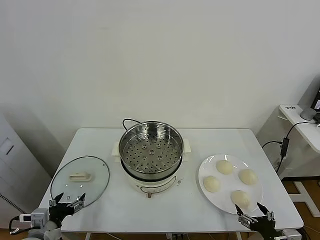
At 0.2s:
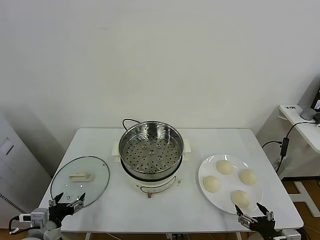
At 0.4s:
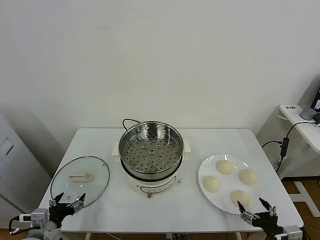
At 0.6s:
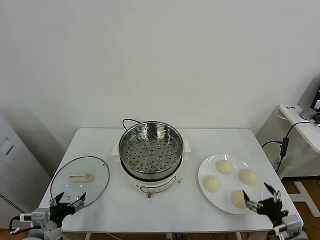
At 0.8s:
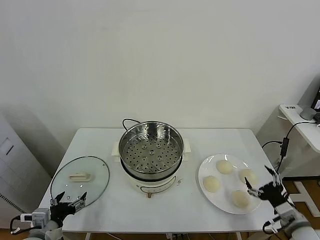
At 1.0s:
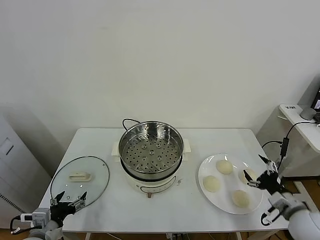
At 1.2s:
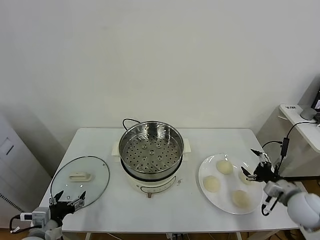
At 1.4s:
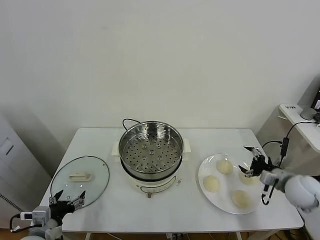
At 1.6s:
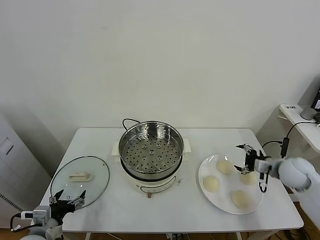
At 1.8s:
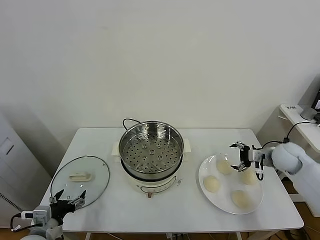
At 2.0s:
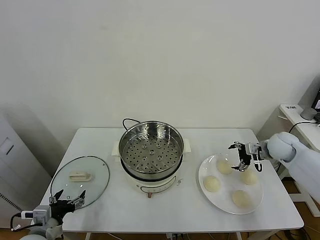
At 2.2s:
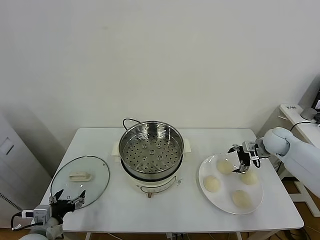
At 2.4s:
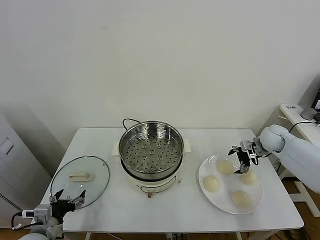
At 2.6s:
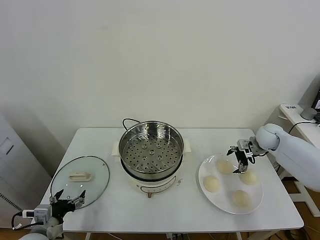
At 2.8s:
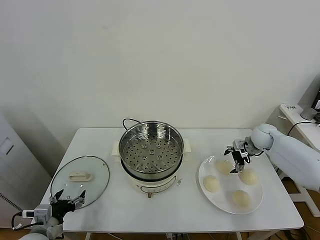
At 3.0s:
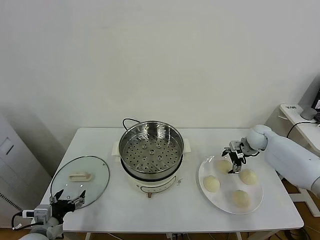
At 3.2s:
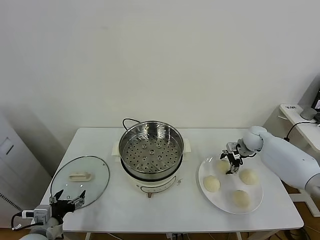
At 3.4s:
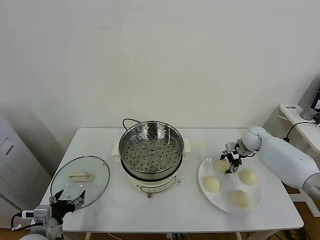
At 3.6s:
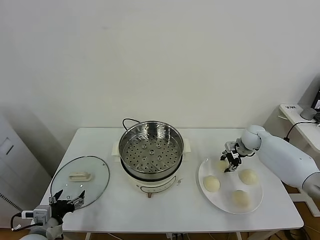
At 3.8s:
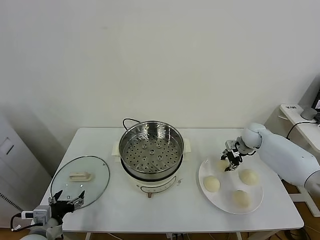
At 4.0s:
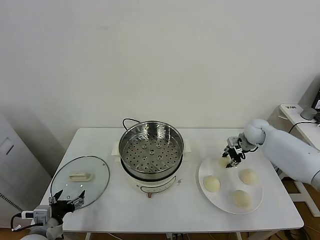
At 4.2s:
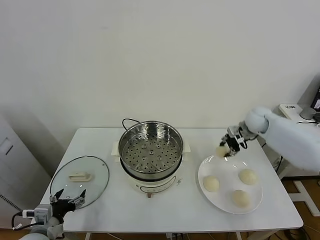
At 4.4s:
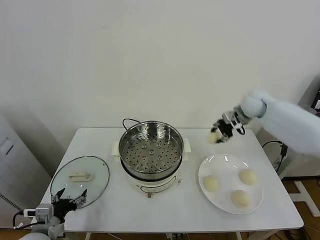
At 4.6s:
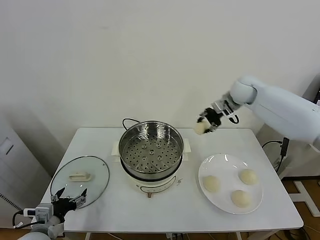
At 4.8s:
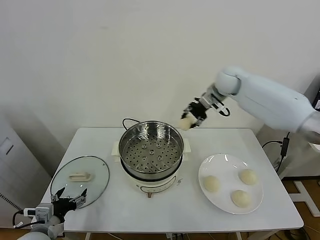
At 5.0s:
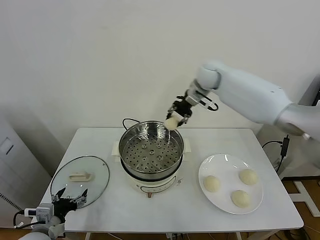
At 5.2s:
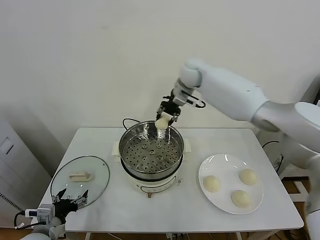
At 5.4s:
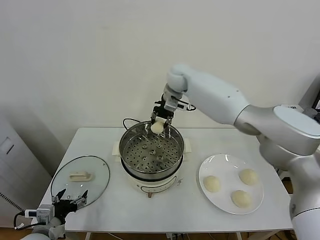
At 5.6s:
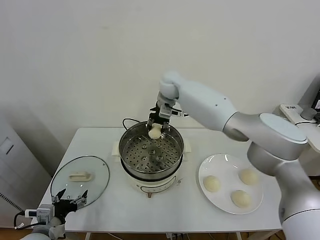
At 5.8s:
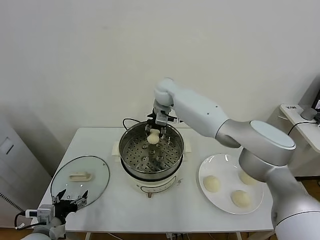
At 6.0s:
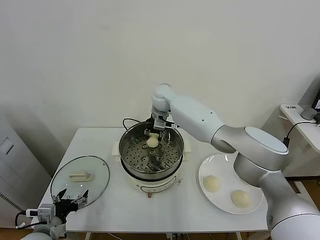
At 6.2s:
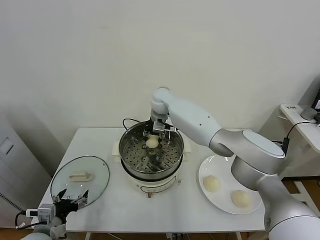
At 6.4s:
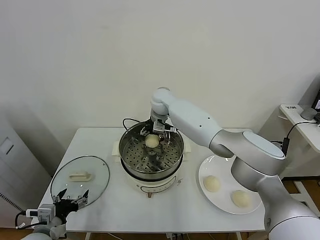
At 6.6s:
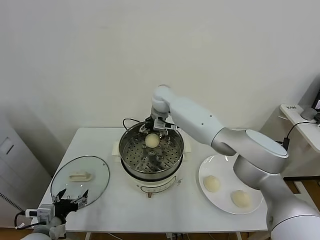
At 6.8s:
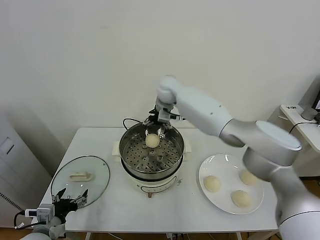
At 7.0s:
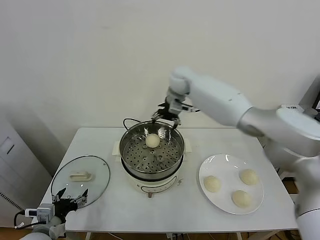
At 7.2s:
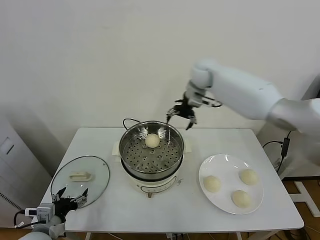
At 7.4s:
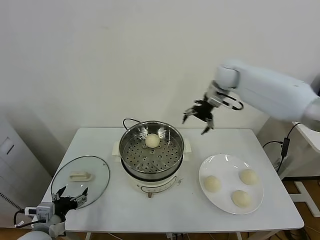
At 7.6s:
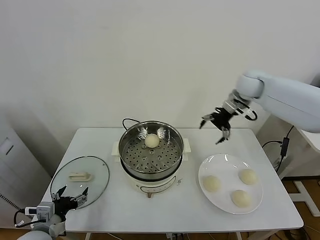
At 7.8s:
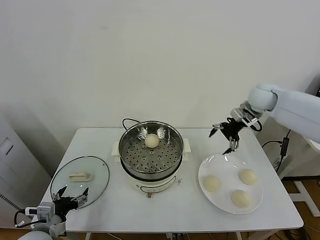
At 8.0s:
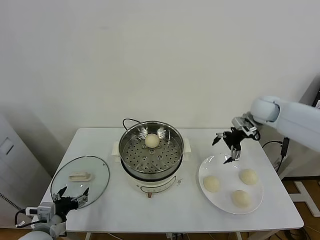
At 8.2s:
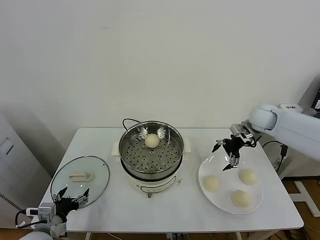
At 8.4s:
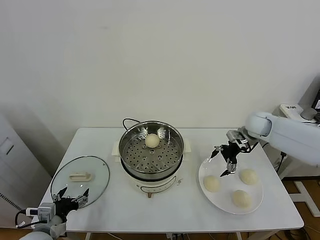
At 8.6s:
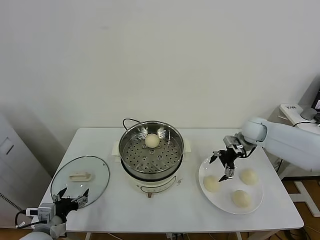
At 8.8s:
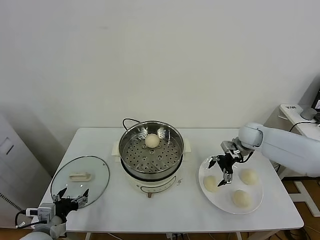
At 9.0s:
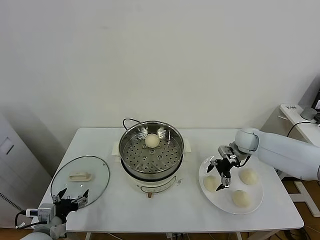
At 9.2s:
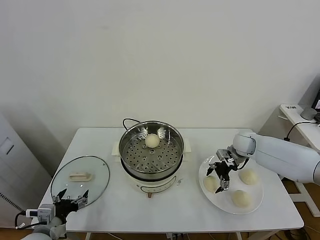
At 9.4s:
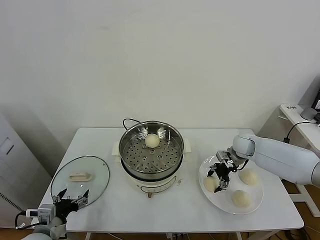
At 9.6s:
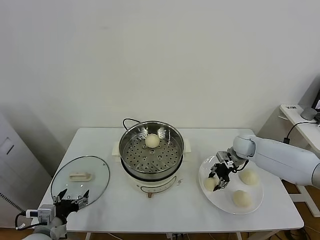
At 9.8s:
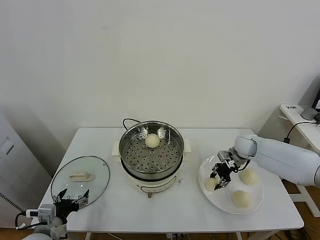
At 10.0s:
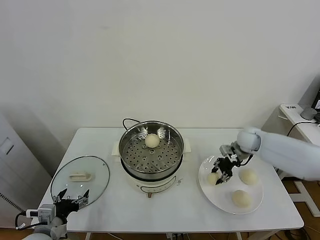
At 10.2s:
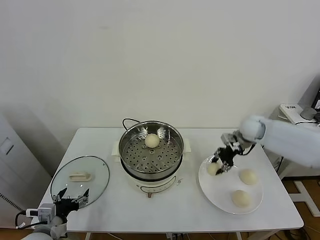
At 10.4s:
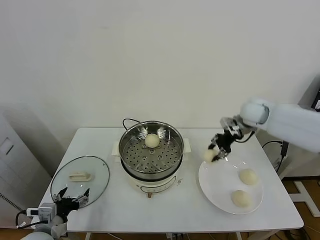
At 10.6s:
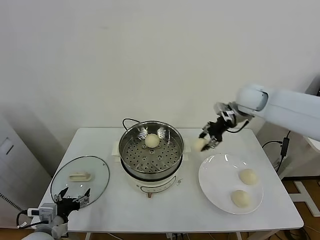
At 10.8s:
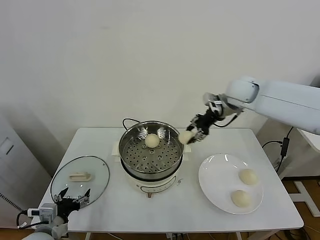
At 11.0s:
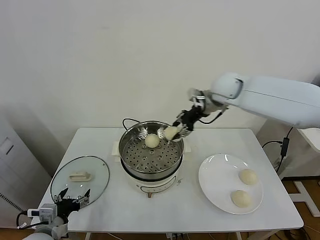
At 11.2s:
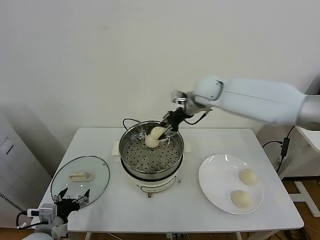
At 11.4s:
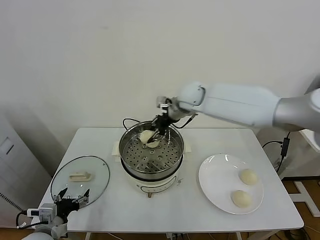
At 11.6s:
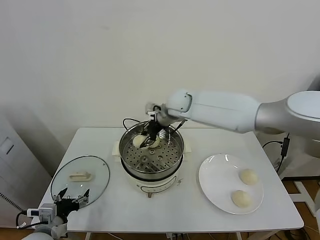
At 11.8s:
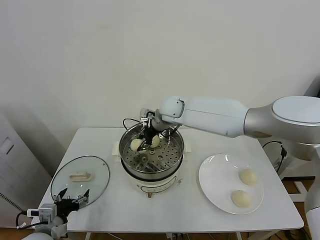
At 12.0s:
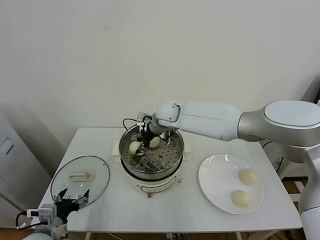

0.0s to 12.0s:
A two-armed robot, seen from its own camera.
Task of the whole recording: take steamed baozi put them in steamer.
Step, 0.0s to 3.2s: Grasp the baozi in the plate with right gripper.
Step, 3.6s to 6.6s: Place the baozi on the steamer with right gripper.
Step, 6.8s to 9.4s: Grasp the baozi in the plate with right gripper.
1.6s to 3.0s: The right gripper shifts some 15 cm forward.
3.0s to 4.4s: The right gripper moves upward and to the left, some 20 cm, and closes.
4.4s to 6.0s: The right gripper is displaced to the left by roughly 30 cm.
6.0s to 7.6s: The right gripper travels to the right by approximately 30 cm, and opens its fingers.
7.6s to 9.0s: The right gripper moves downward, approximately 20 cm.
9.0s to 10.4s: The right gripper travels upward by some 15 cm, and closes its fingers.
10.4s to 12.0s: The right gripper heads to the left, covering about 30 cm.

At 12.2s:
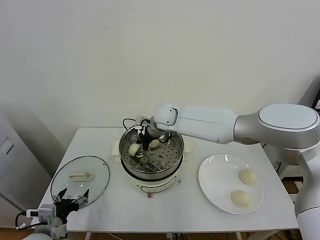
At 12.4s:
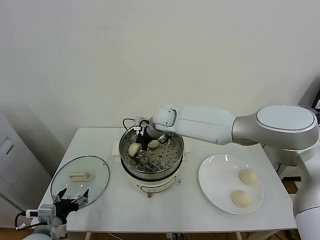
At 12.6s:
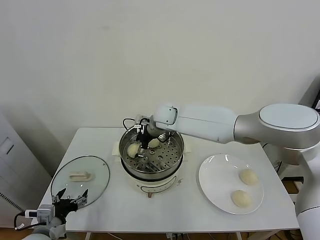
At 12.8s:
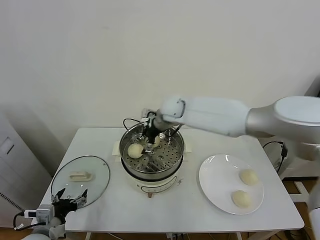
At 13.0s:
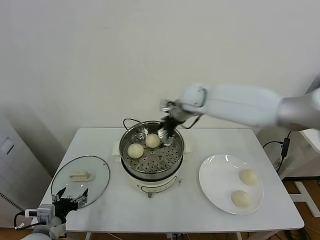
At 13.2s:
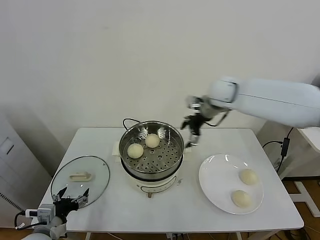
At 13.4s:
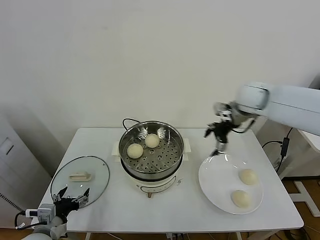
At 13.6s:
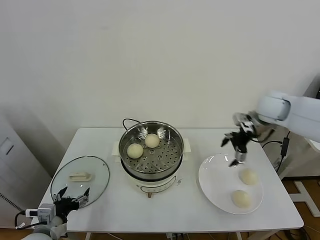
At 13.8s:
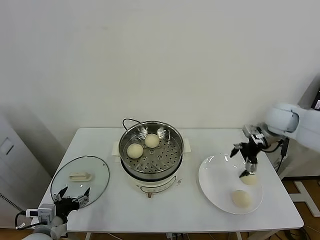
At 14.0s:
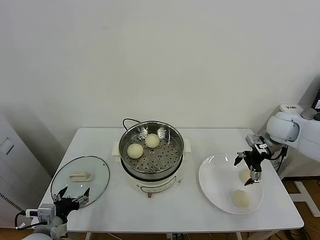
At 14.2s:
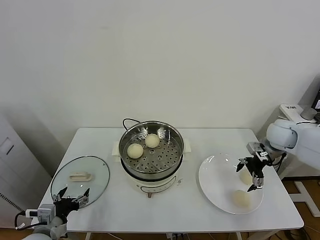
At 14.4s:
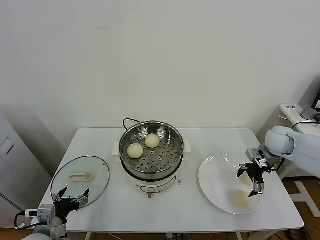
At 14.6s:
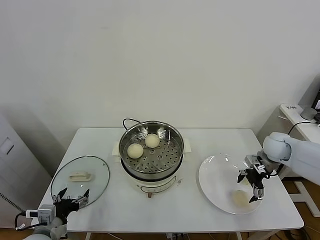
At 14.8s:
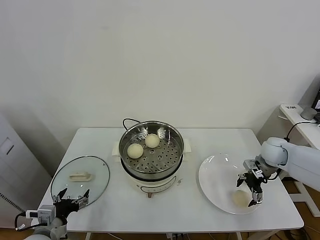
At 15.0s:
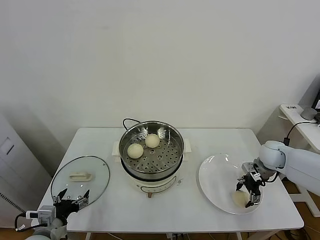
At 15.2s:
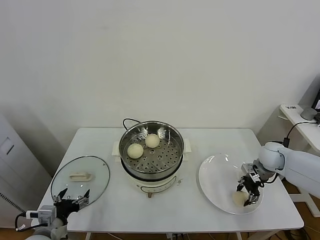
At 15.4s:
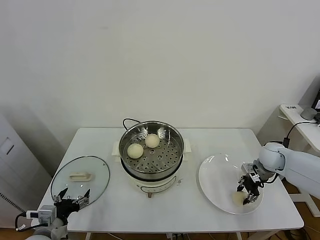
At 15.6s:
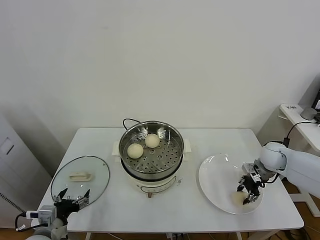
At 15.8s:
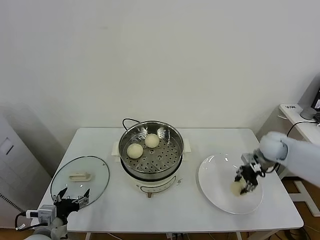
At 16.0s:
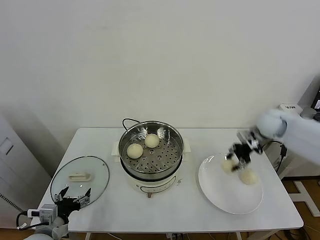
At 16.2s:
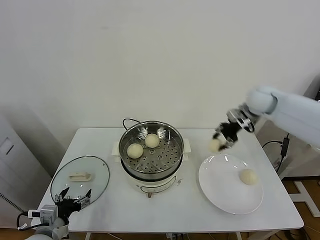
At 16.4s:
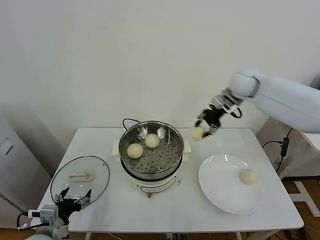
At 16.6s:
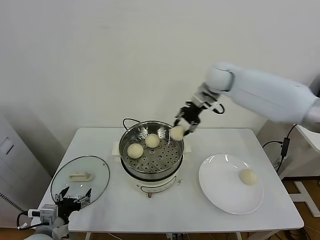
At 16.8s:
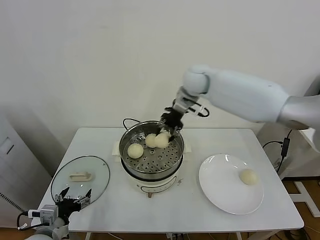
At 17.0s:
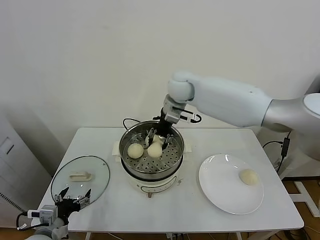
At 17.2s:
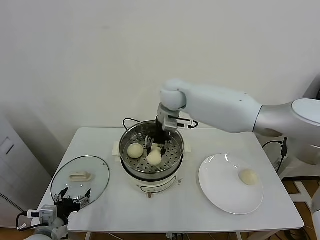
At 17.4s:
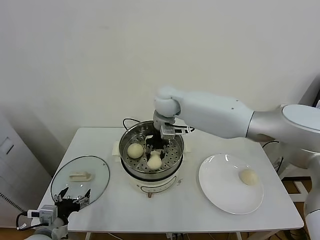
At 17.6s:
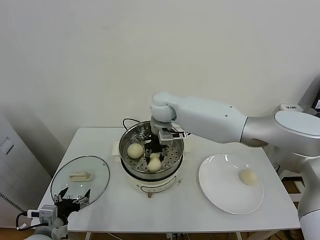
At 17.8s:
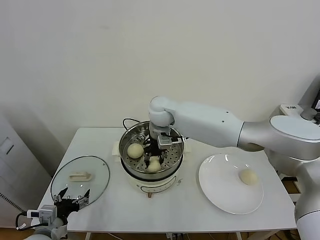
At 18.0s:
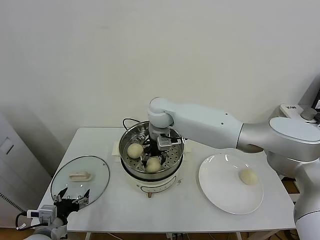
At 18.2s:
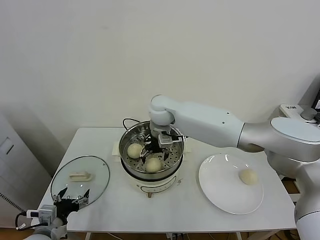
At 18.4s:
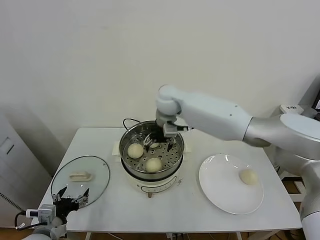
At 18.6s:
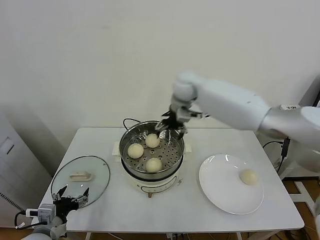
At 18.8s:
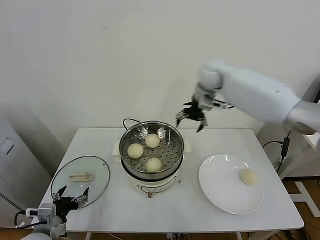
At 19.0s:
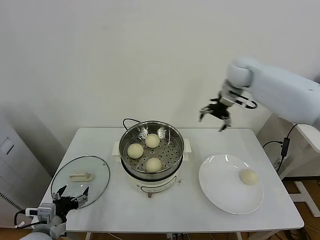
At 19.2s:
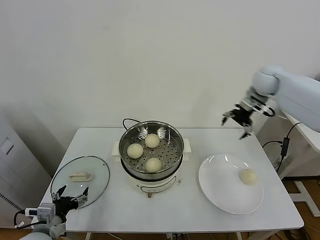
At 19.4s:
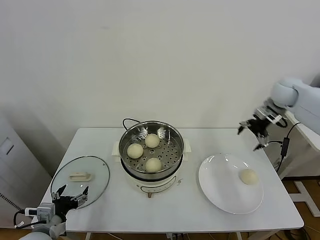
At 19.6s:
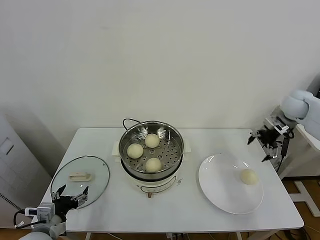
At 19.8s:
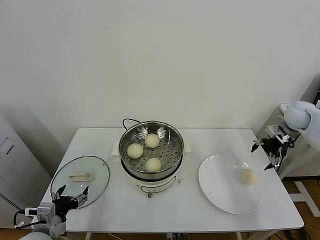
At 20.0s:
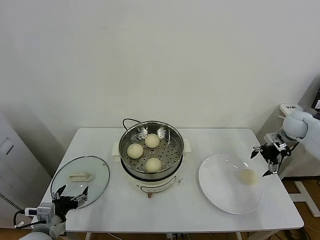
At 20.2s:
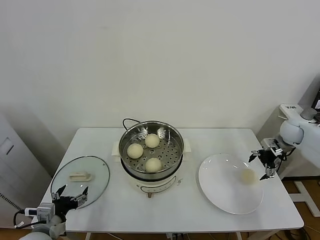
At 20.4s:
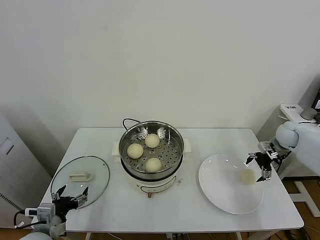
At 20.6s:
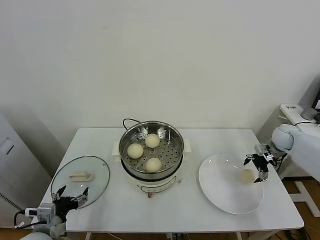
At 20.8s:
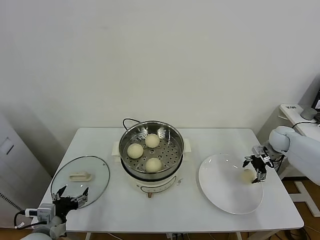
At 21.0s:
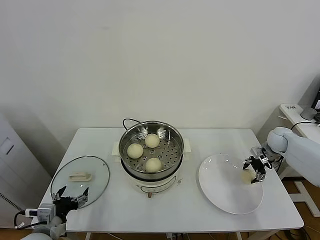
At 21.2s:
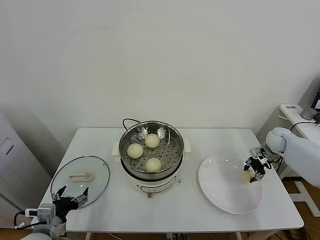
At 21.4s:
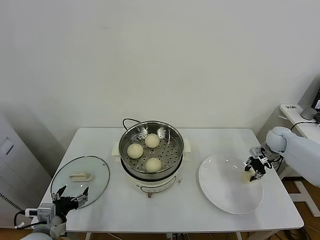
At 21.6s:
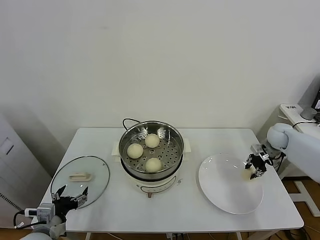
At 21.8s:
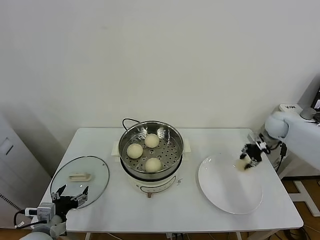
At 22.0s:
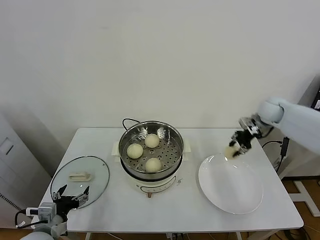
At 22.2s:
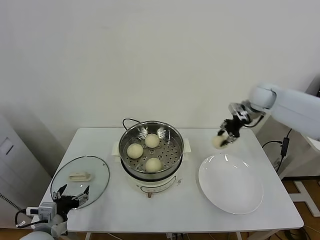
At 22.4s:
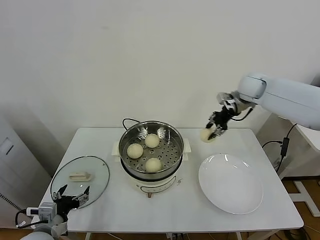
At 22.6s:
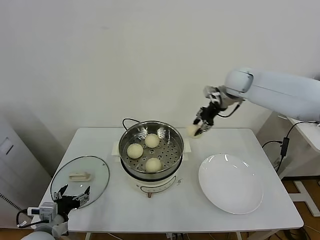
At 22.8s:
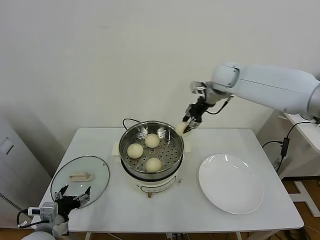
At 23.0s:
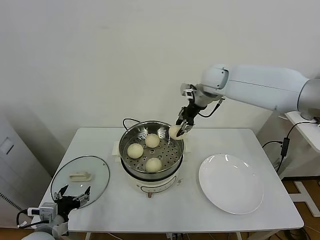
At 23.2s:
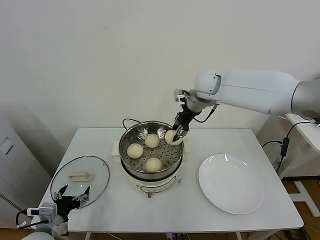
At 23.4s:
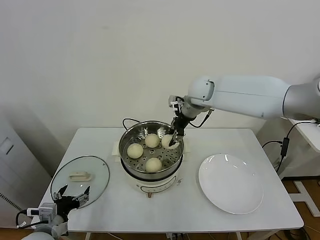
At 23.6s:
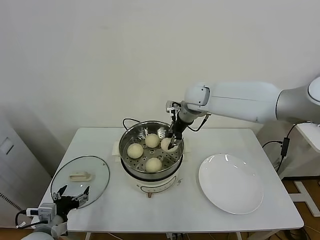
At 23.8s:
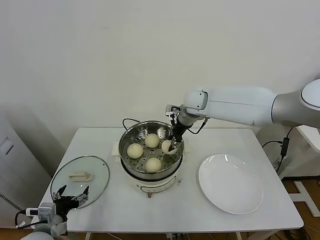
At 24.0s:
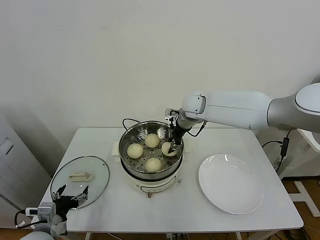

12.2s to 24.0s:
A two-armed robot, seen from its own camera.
Task of the whole recording: take steamed baozi put them in steamer.
Step, 12.8s to 15.2s: Grasp the baozi in the plate with right gripper.
Step, 15.4s to 18.0s: Place the baozi on the steamer with right gripper.
Step, 18.2s to 21.2s: Grasp the baozi in the plate with right gripper.
12.2s to 13.6s: The right gripper heads to the right, covering about 35 cm, and opens.
13.6s to 15.2s: The right gripper shifts approximately 20 cm downward, and closes up.
15.2s to 16.6s: The right gripper heads upward, to the left and forward, covering roughly 35 cm.
16.6s to 18.2s: The right gripper heads to the left and downward, covering some 20 cm, and opens its fingers.
18.2s to 19.6s: The right gripper travels to the right by approximately 50 cm.
19.6s to 21.0s: The right gripper is displaced downward by roughly 15 cm, and closes its fingers.
21.0s to 22.6s: The right gripper travels upward and to the left by about 30 cm, and closes its fingers.
22.6s to 24.0s: The right gripper goes about 15 cm to the left and downward.
